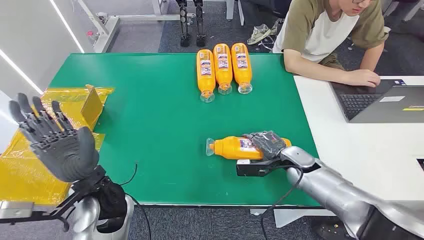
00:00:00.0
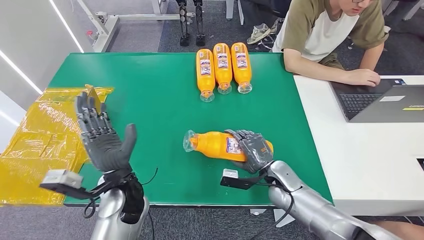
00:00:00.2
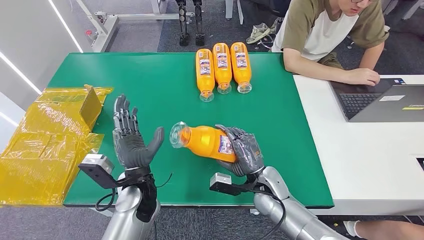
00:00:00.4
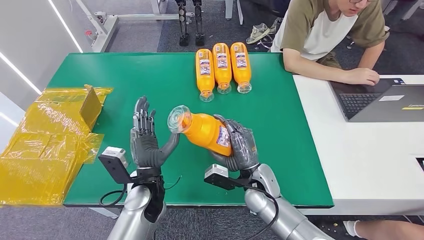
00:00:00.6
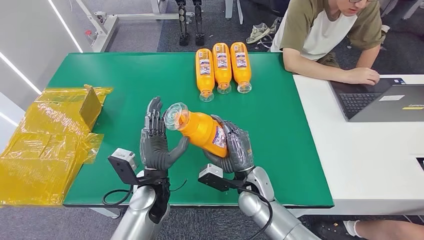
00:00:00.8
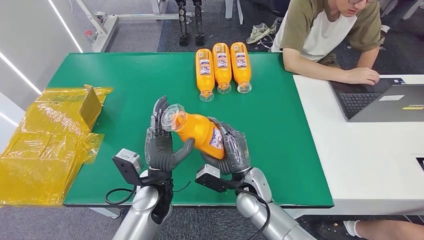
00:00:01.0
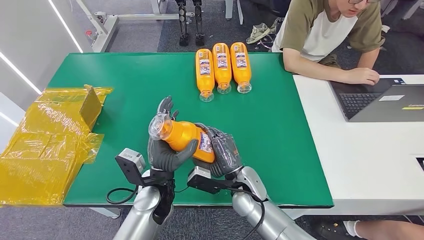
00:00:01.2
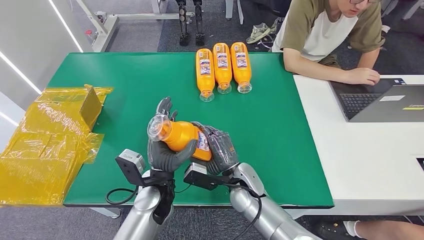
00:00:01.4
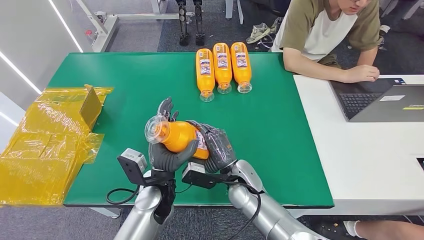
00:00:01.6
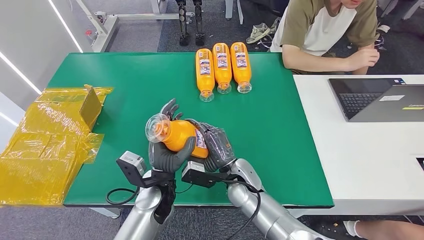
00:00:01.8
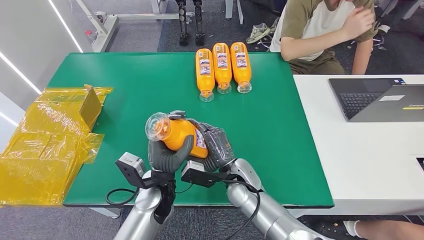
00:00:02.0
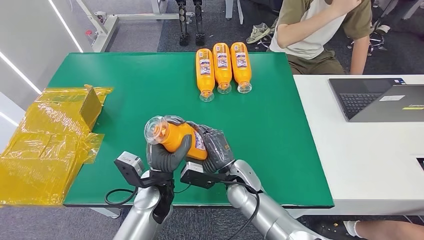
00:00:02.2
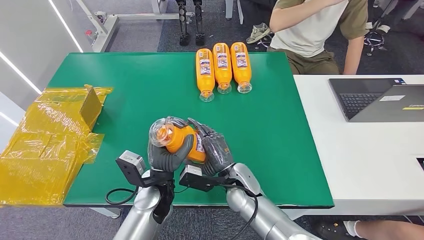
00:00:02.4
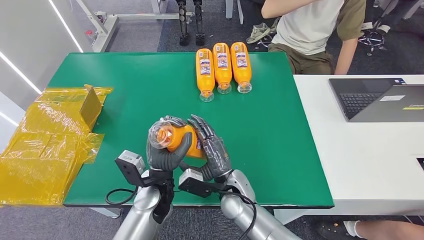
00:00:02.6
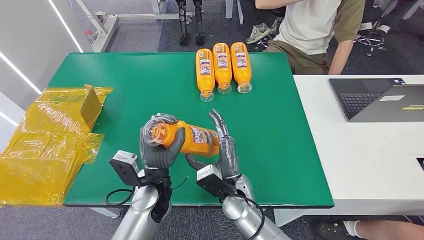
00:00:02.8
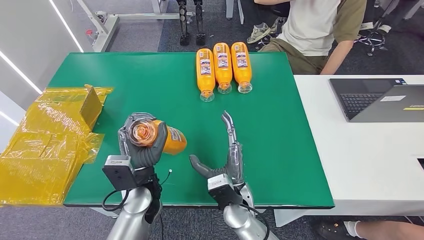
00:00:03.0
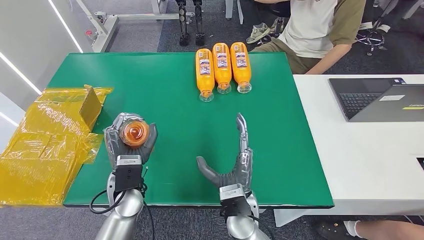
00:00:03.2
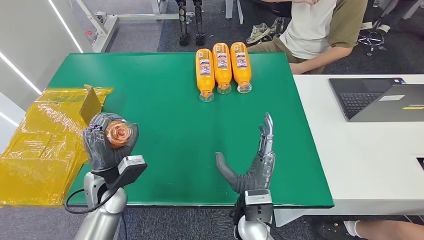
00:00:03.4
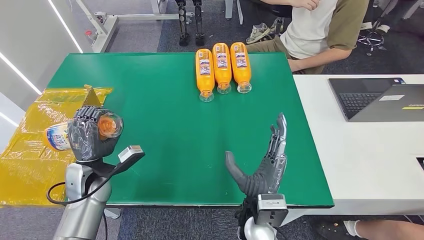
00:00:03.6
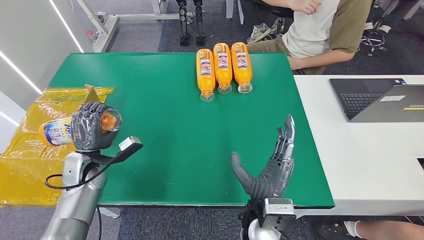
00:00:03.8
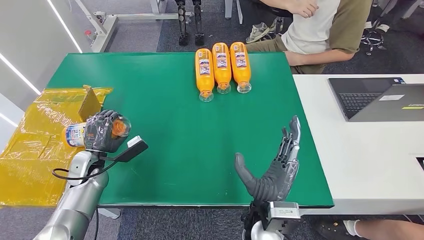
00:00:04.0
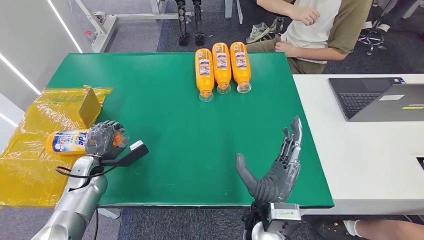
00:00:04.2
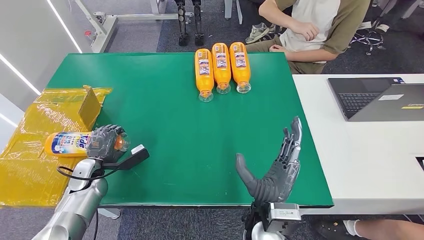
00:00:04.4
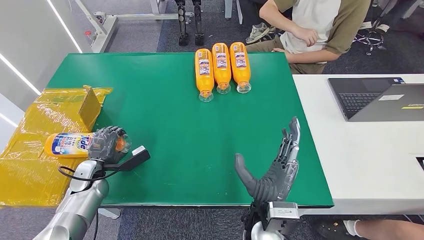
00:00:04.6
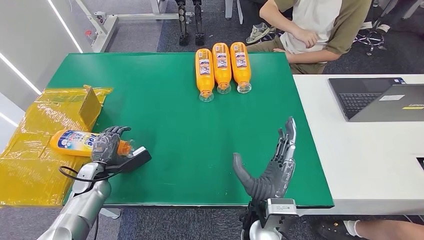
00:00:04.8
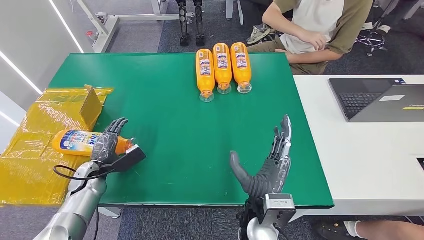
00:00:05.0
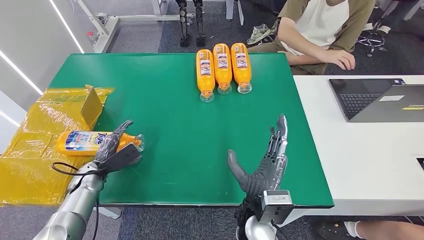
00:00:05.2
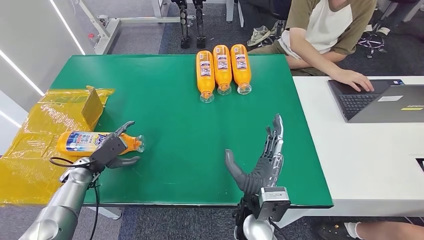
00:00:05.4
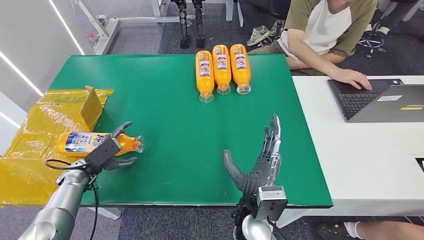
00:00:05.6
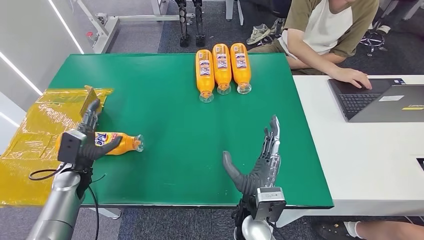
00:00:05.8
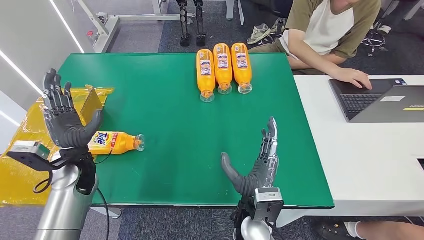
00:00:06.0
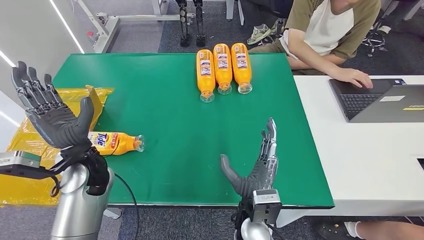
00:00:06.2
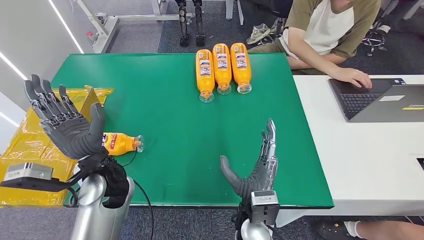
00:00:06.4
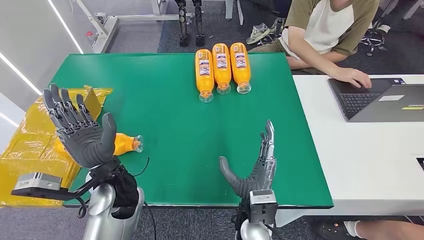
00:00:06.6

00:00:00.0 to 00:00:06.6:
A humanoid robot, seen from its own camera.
Step, 00:00:00.0 to 00:00:01.8: Pick up the bottle from the table.
Step, 00:00:02.0 to 00:00:06.4: Turn the bottle to the front side.
00:00:01.6 to 00:00:03.2: The left hand moves to the left, some 5 cm, while the right hand heads backward, covering roughly 10 cm.
00:00:03.2 to 00:00:05.0: The left hand heads to the left and downward, covering approximately 20 cm.
00:00:05.0 to 00:00:06.6: The left hand shifts approximately 25 cm to the right and upward.

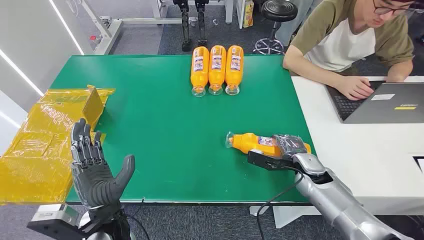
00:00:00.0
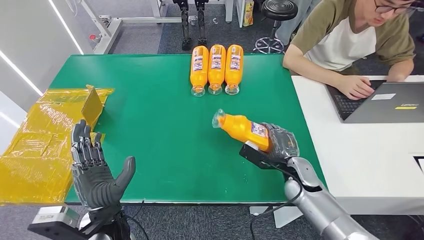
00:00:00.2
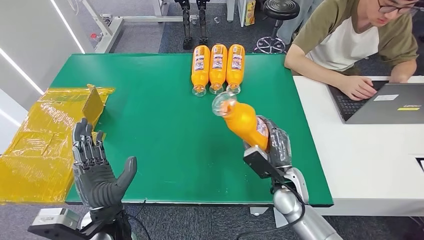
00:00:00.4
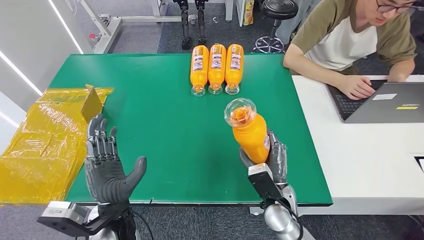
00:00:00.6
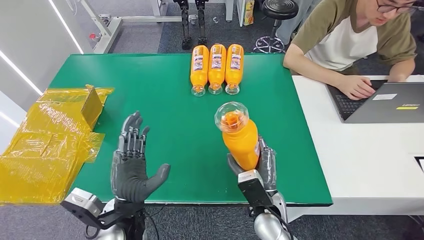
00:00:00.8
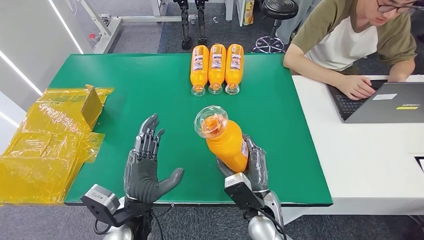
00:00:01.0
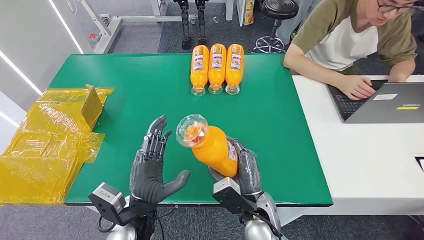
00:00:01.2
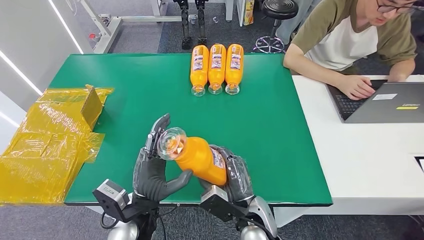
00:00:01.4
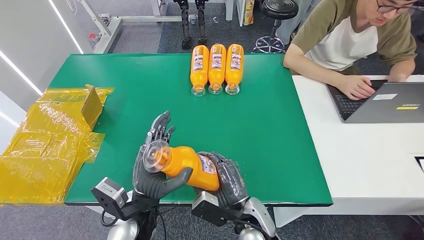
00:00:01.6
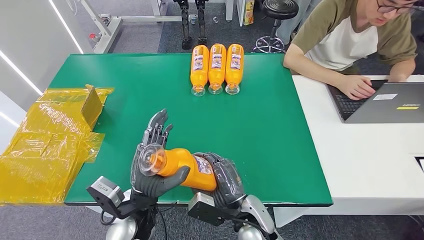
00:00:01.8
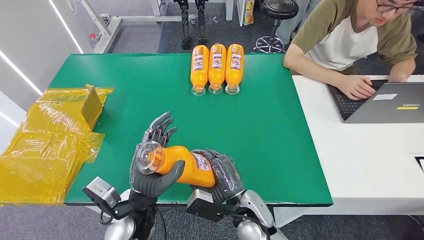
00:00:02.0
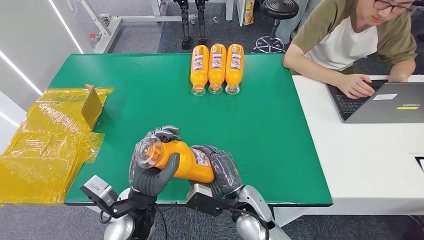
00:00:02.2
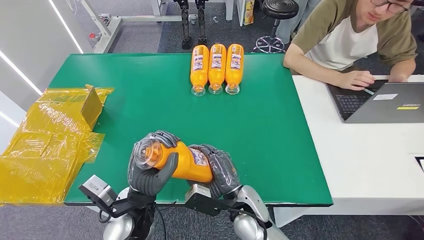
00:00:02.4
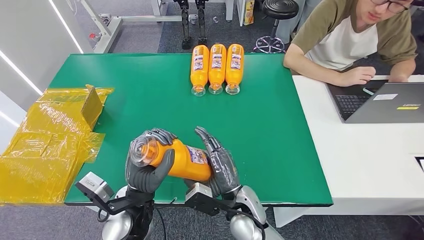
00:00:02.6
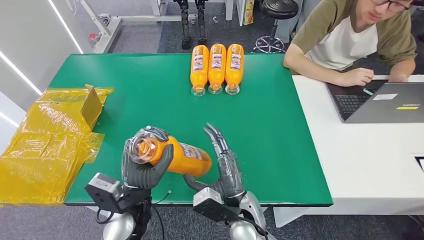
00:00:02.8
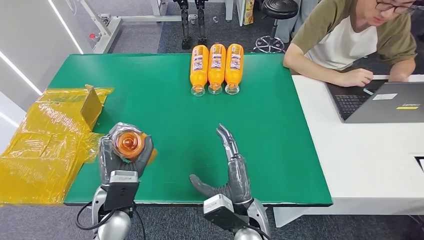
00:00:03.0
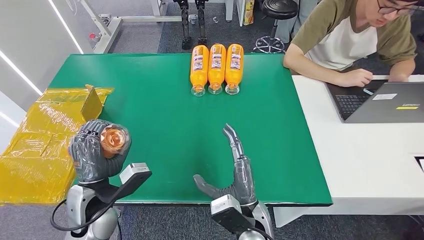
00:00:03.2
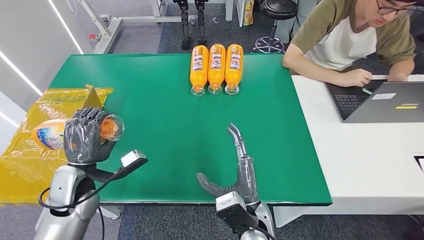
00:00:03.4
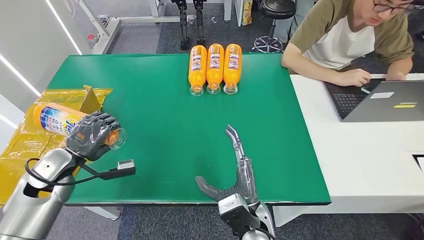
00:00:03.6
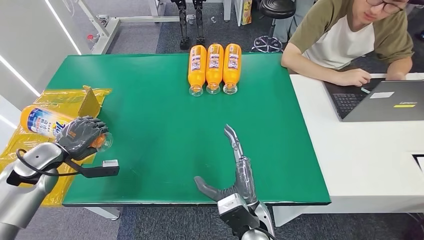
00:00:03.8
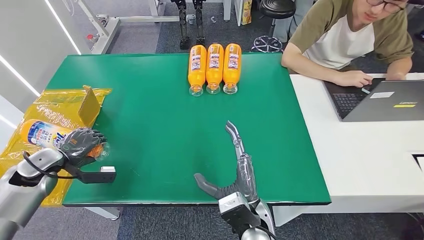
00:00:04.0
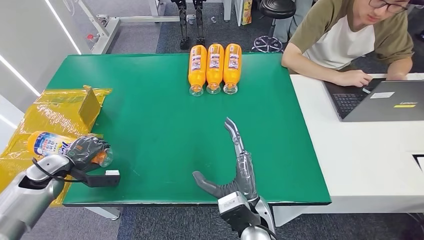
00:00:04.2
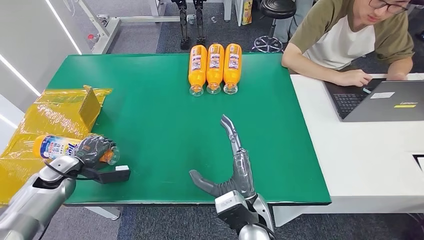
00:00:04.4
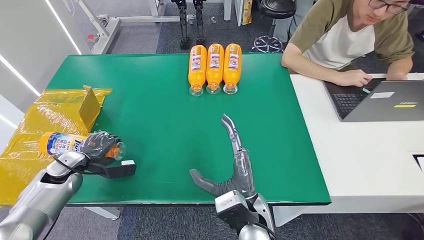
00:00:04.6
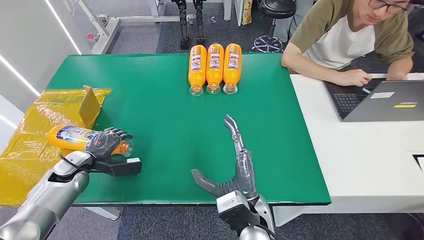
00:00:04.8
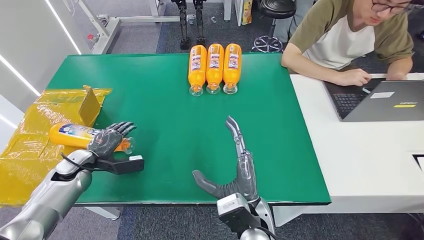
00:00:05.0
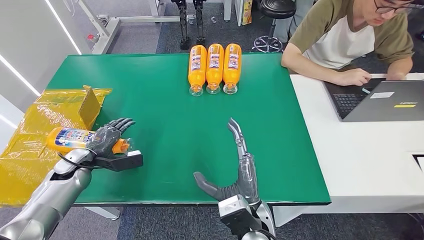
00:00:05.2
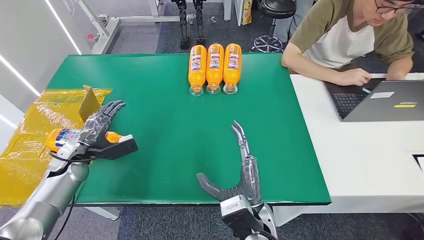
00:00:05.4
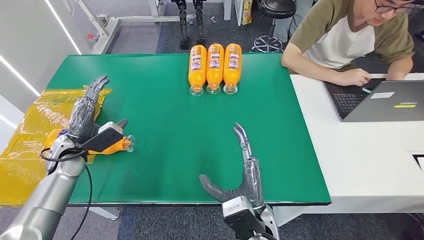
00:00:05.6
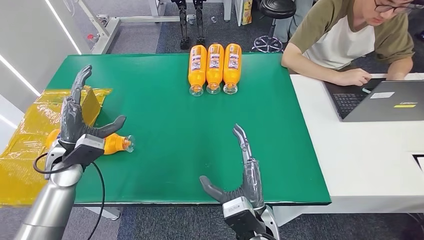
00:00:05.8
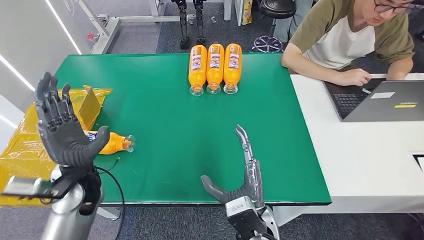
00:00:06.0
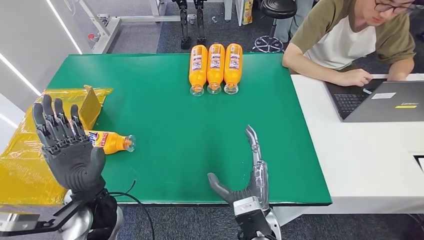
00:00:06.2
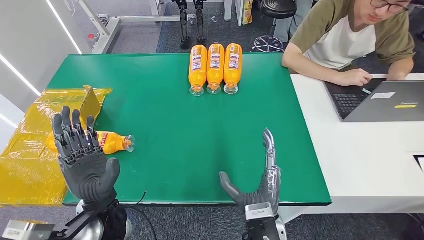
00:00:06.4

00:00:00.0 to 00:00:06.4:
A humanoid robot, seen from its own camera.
Step, 00:00:00.0 to 00:00:02.0: Pick up the bottle from the table.
Step, 00:00:02.2 to 00:00:06.4: Turn the bottle to the front side.
00:00:01.6 to 00:00:03.2: The left hand moves to the left, roughly 10 cm.
00:00:03.2 to 00:00:04.8: The left hand shifts about 20 cm to the left and forward.
00:00:04.8 to 00:00:06.4: The left hand moves to the right and backward, some 25 cm.

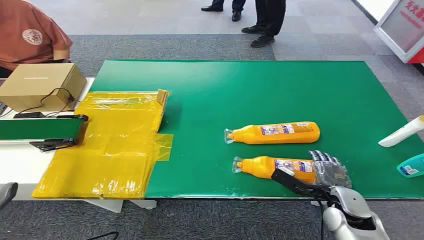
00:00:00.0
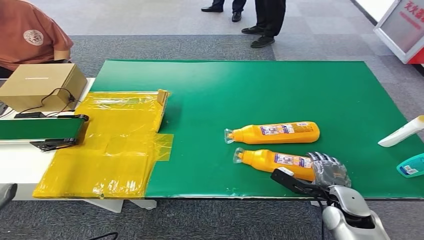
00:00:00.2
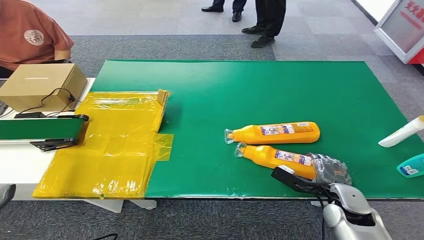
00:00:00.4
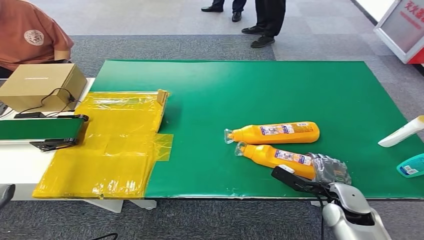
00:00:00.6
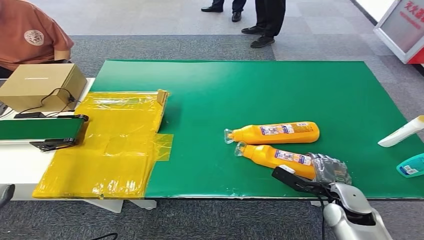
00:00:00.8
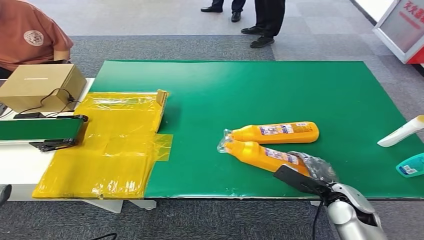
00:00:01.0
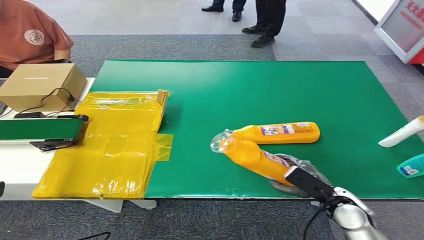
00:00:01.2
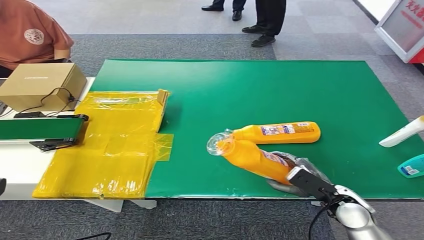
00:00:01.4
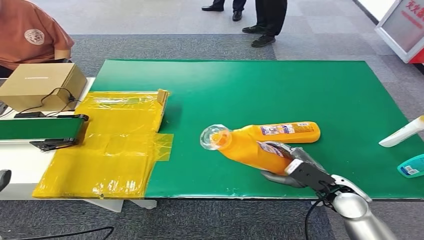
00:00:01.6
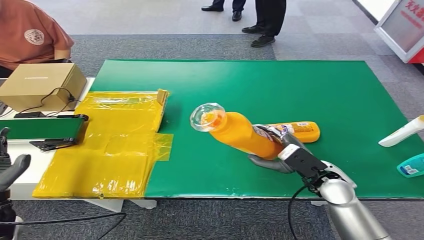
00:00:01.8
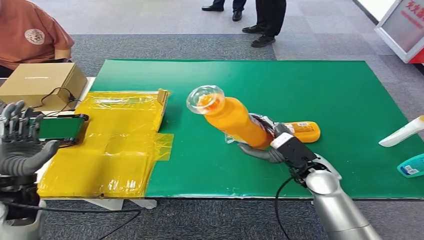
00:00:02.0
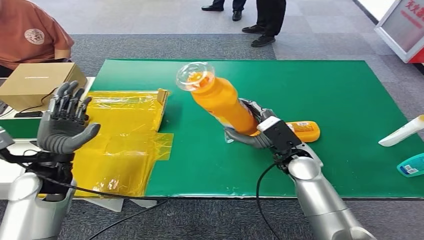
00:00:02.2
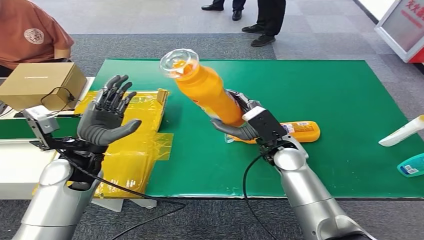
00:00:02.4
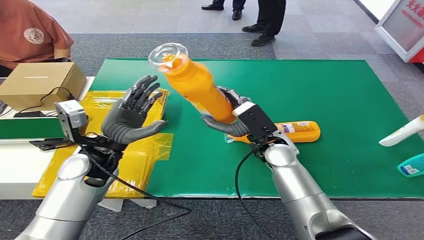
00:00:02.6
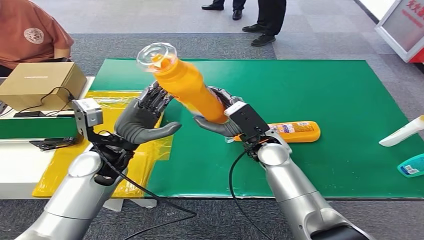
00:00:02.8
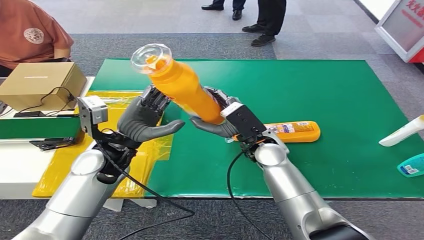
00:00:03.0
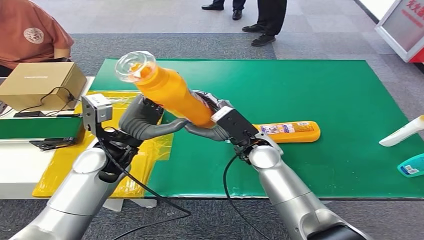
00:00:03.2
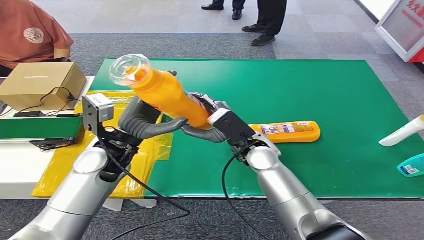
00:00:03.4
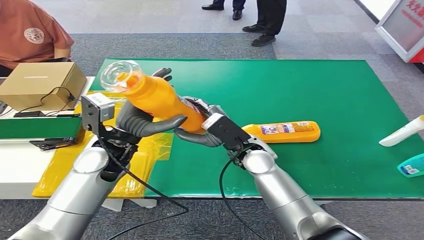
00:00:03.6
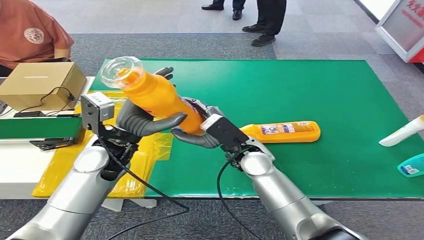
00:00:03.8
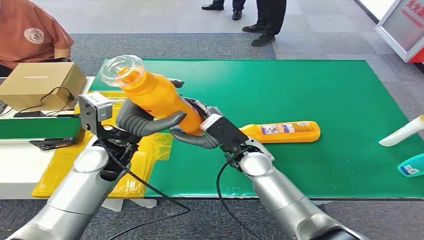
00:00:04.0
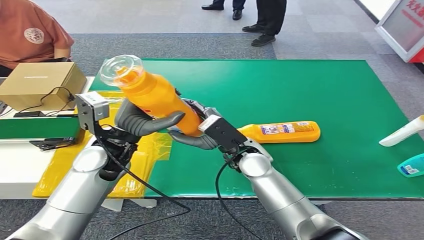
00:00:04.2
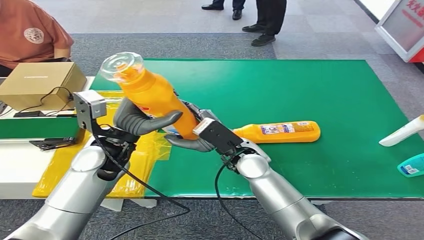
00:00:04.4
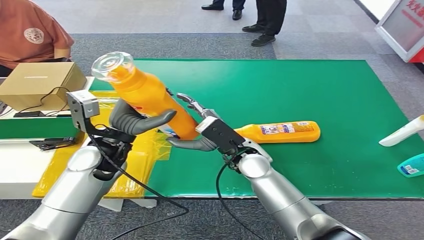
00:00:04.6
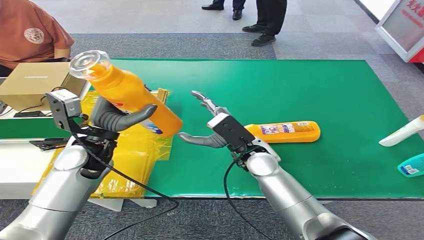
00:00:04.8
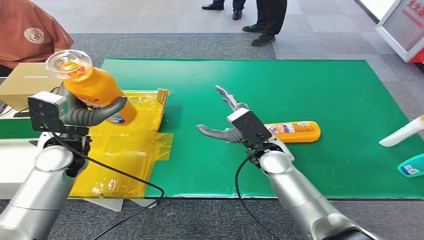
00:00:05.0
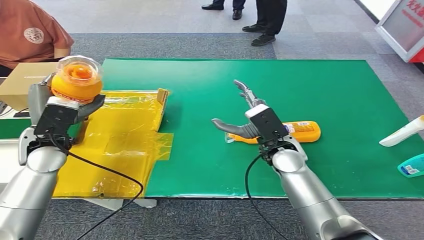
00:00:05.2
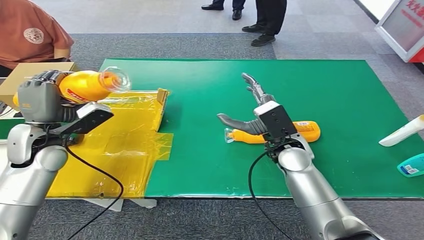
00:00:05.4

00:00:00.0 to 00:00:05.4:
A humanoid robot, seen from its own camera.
Step, 00:00:00.0 to 00:00:01.6: Pick up the bottle from the table.
00:00:02.8 to 00:00:04.0: The hands move only a little.
